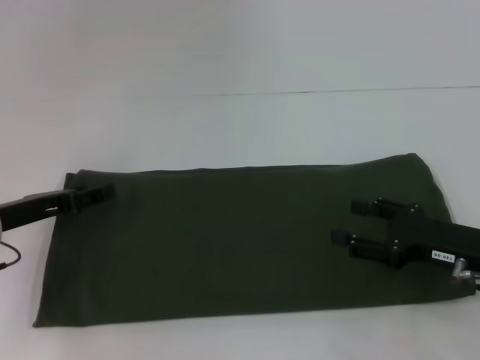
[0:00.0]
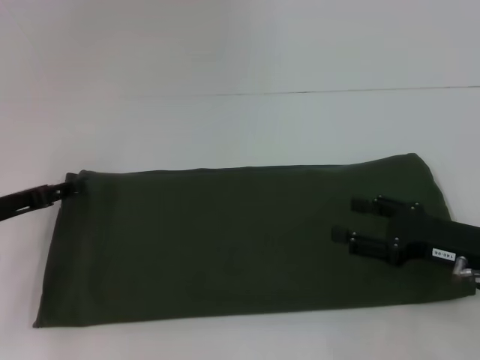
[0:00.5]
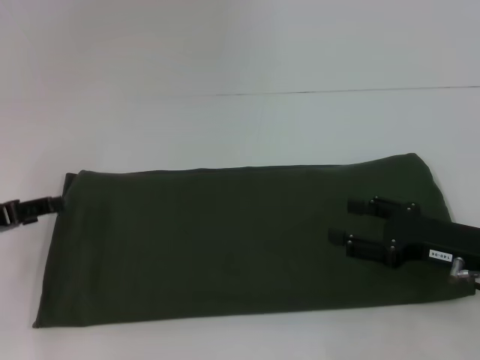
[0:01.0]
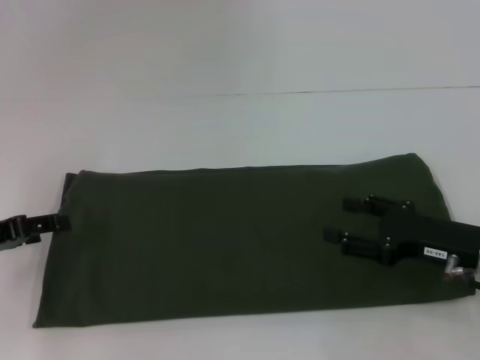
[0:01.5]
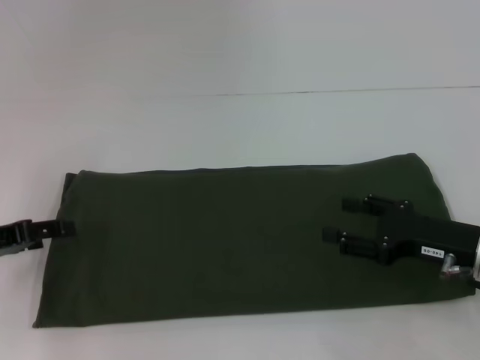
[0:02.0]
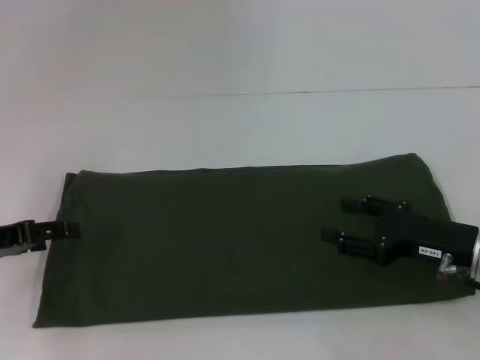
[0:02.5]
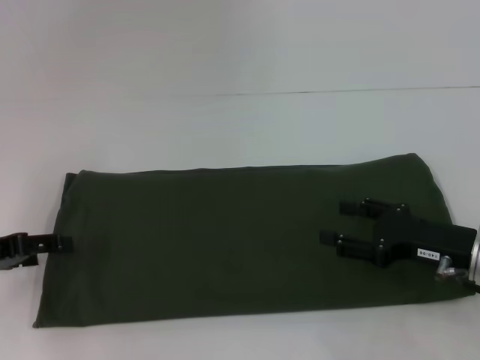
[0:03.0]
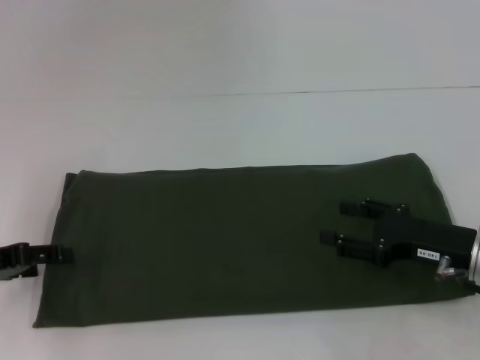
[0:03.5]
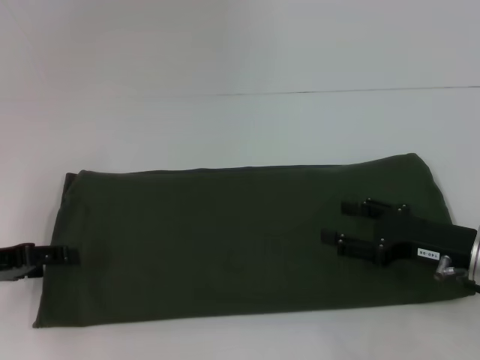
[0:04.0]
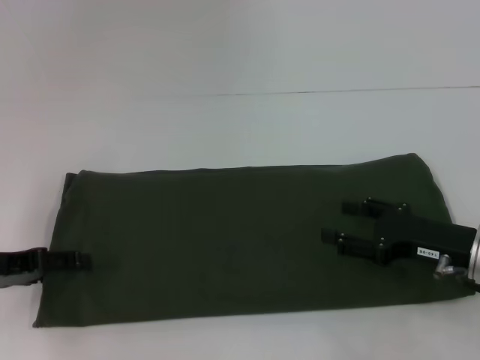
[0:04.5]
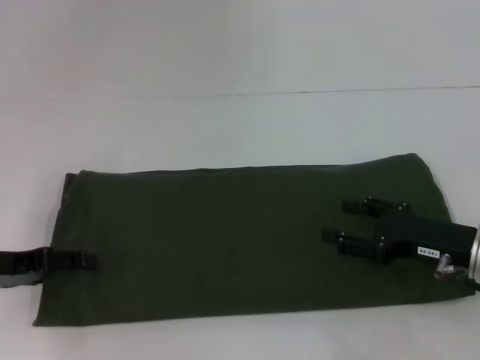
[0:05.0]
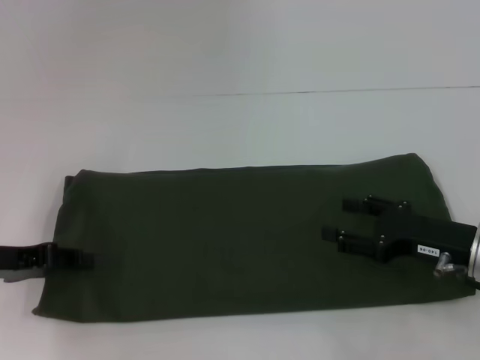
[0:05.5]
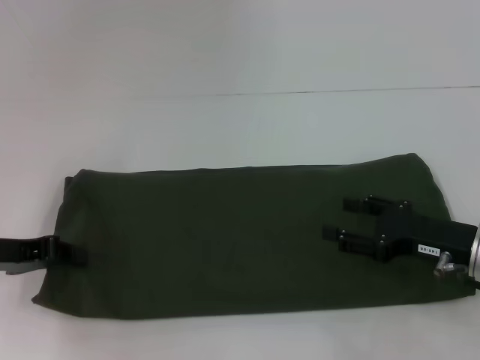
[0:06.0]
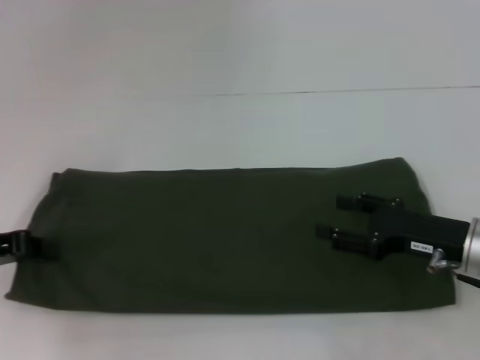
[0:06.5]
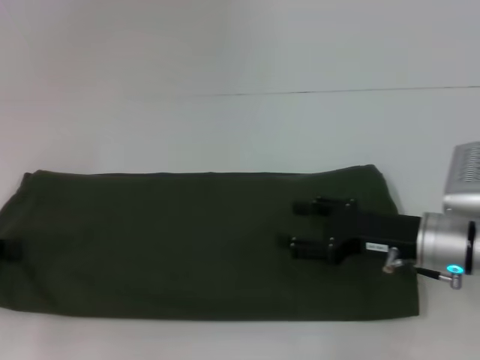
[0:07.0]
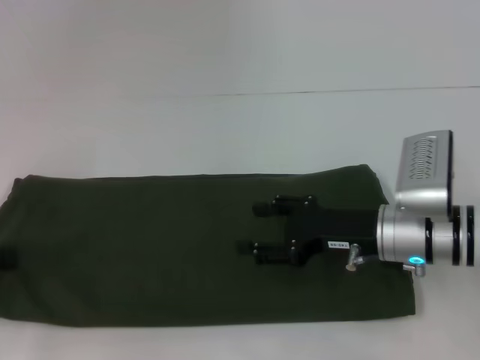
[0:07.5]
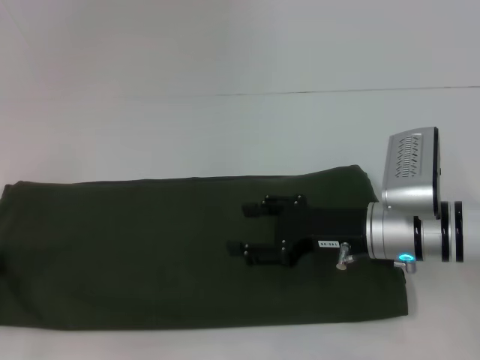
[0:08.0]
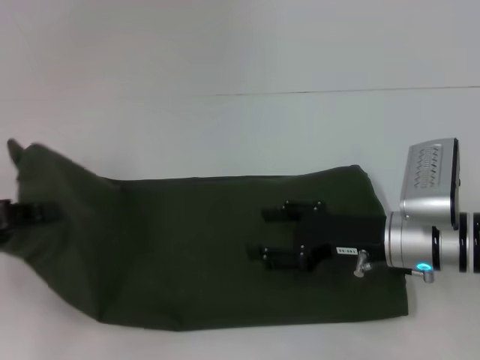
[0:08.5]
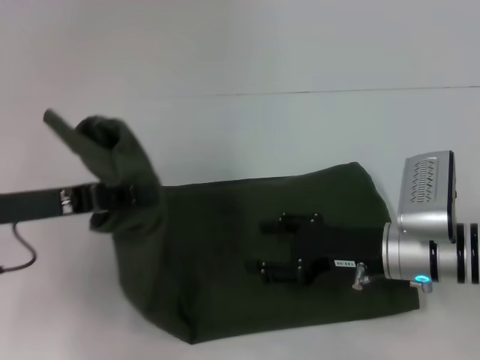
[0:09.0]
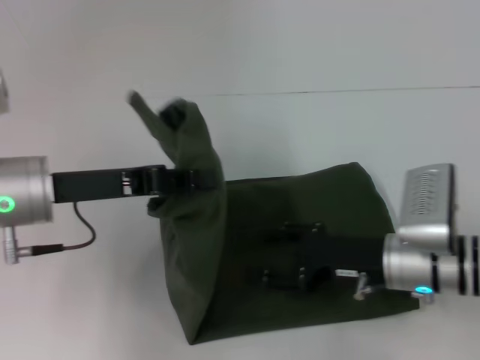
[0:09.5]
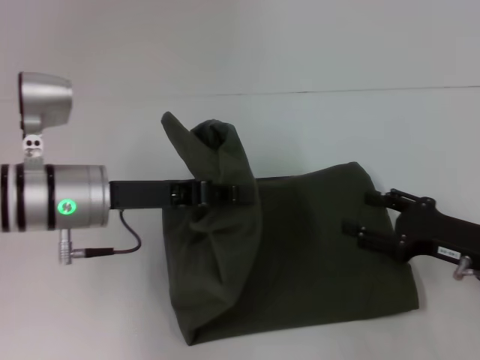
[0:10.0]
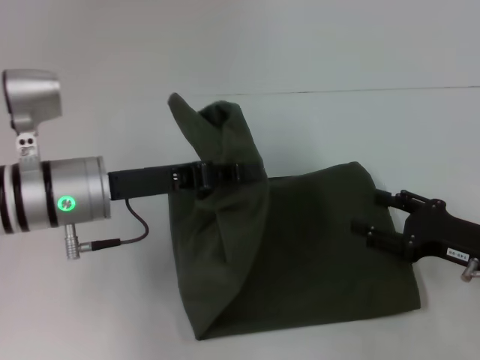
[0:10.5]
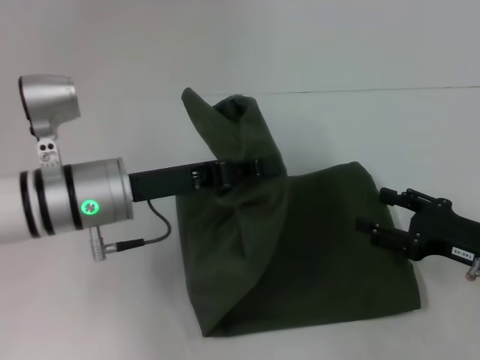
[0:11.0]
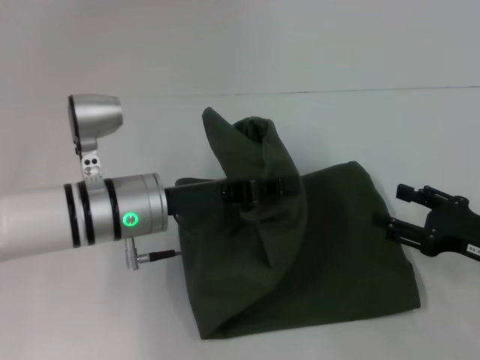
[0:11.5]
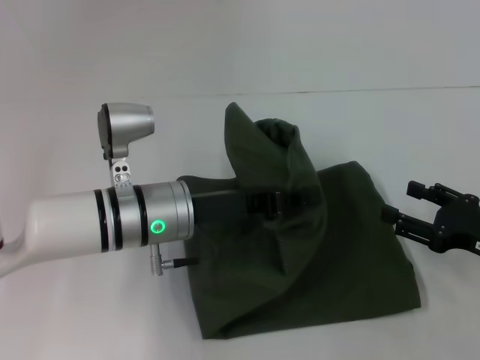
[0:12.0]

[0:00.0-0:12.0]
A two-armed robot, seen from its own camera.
0.0 to 2.0 s: The left gripper shifts by approximately 5 cm.
2.0 to 4.0 s: There are only small adjustments of the grippers.
4.0 to 6.0 s: The left gripper closes up.
6.0 to 8.0 s: The left gripper travels to the left by about 5 cm, while the right gripper is displaced to the left by about 10 cm.
8.0 to 10.0 s: The left gripper is displaced to the right by approximately 20 cm, while the right gripper travels to the right by about 10 cm.
10.0 to 12.0 s: The left gripper moves to the right, approximately 5 cm.

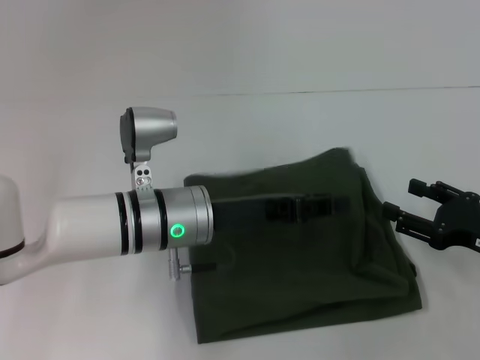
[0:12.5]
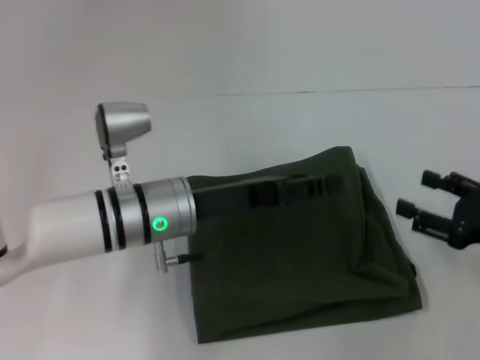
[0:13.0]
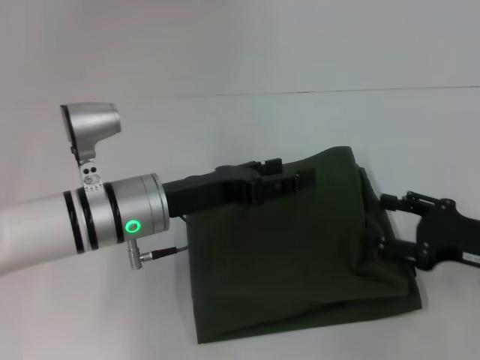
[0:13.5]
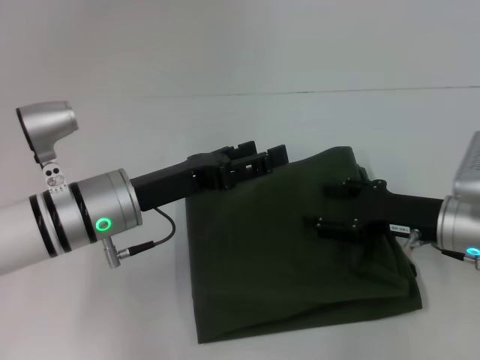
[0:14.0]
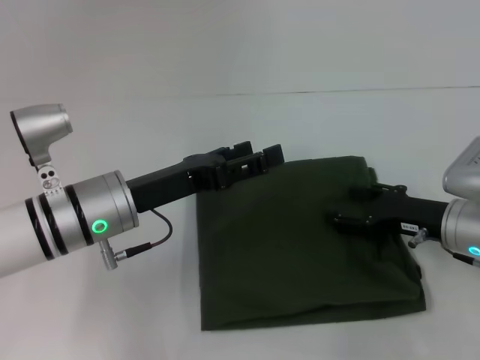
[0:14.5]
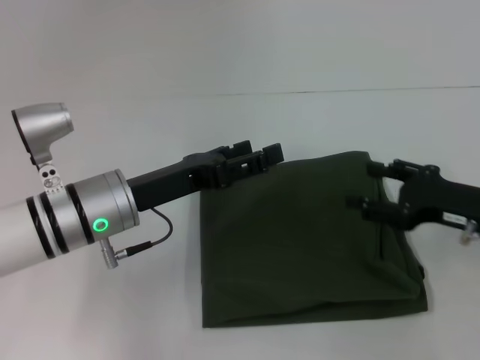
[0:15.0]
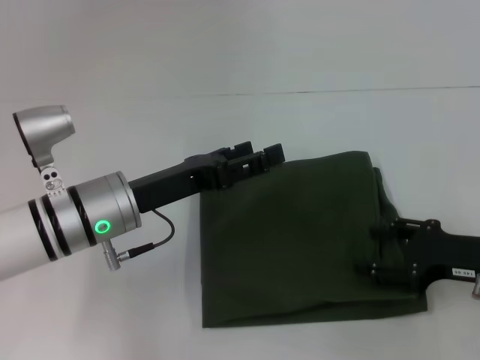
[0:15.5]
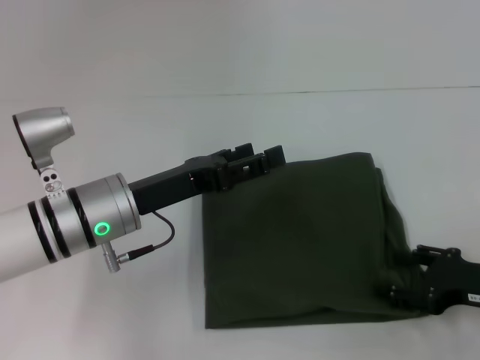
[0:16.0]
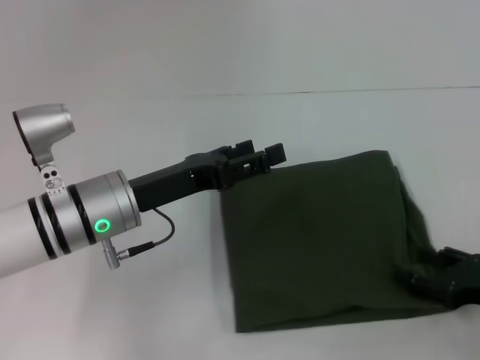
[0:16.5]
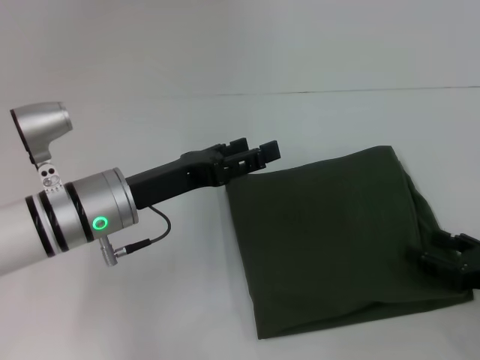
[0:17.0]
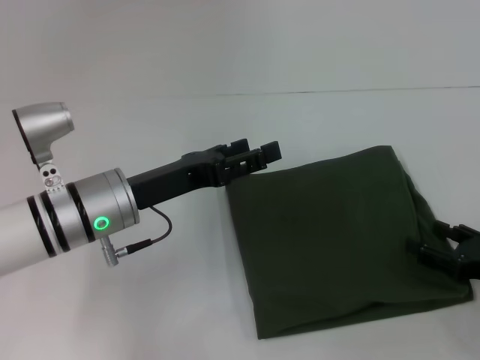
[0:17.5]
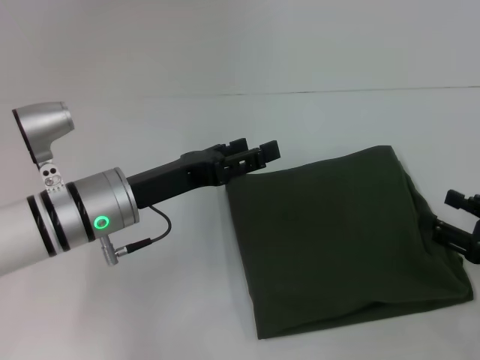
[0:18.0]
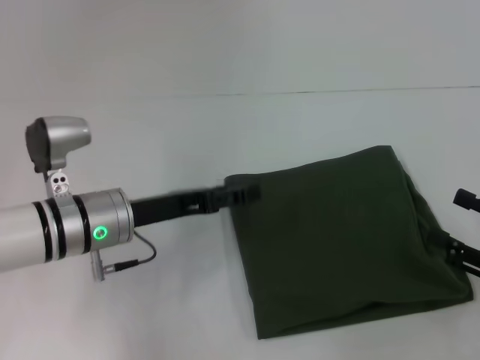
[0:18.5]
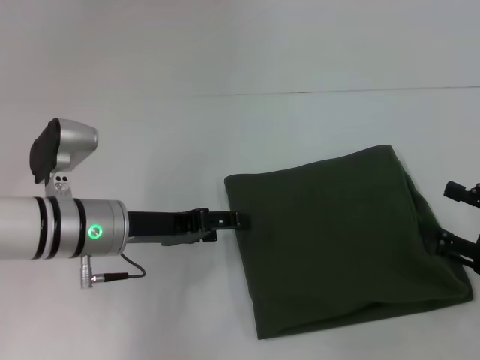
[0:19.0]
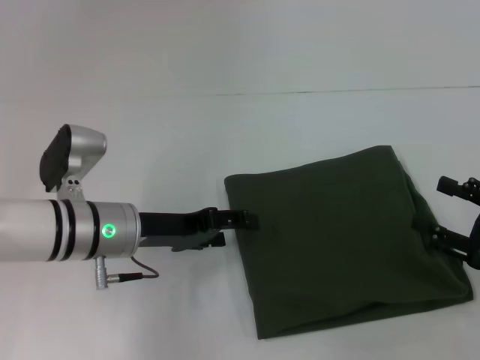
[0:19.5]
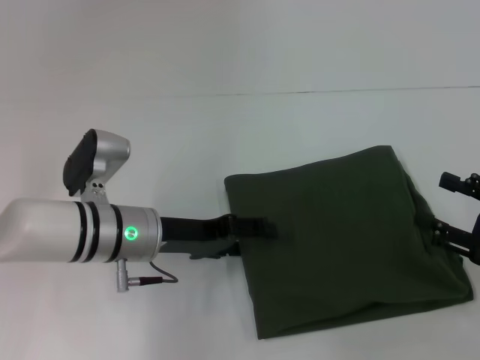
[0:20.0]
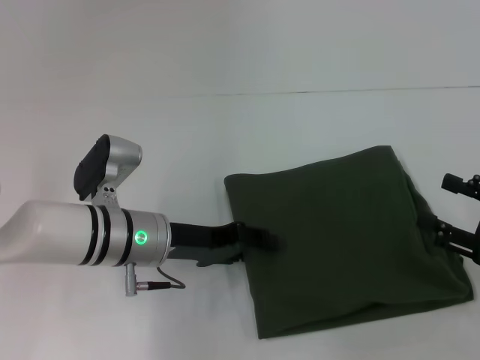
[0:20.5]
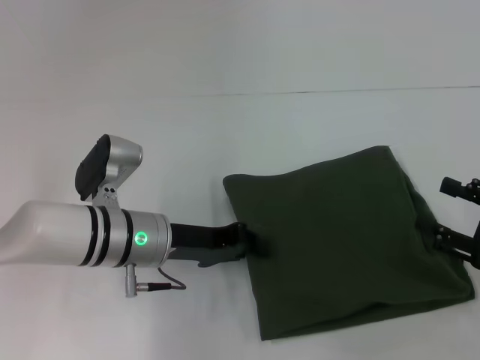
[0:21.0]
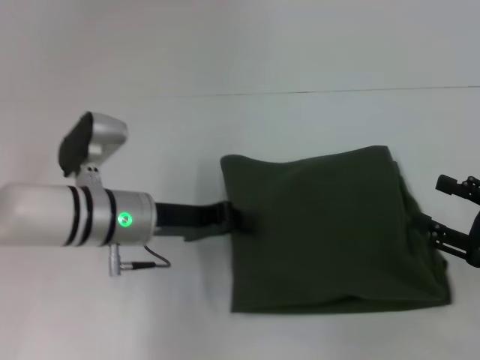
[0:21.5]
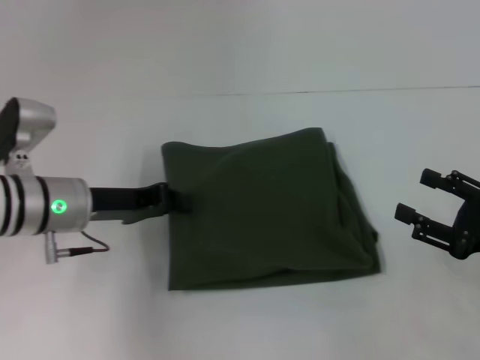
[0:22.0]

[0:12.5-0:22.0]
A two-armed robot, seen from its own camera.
12.5 to 14.5 s: The left gripper shifts some 5 cm to the left, and opens its fingers. The right gripper heads forward and to the left, covering some 10 cm.
14.5 to 16.5 s: The right gripper goes roughly 10 cm backward and to the right.
16.5 to 18.0 s: The grippers move only a little.
20.0 to 22.0 s: The left gripper is displaced to the left by approximately 5 cm, and closes up.

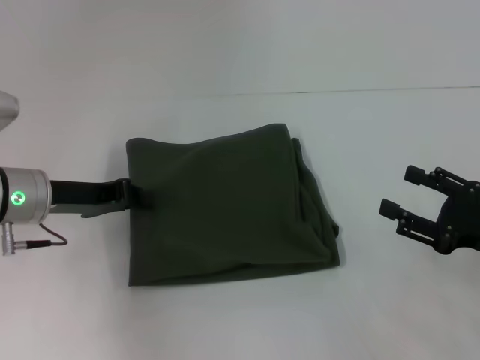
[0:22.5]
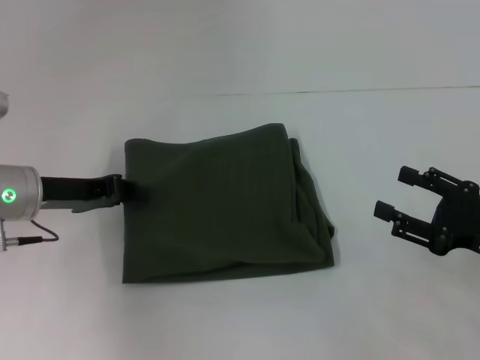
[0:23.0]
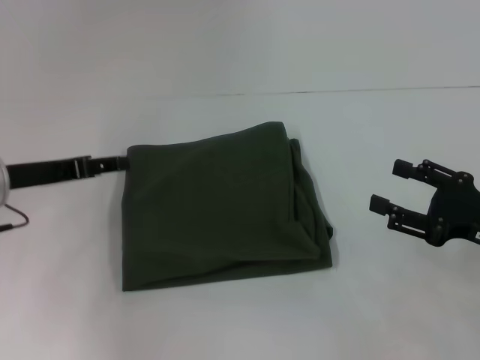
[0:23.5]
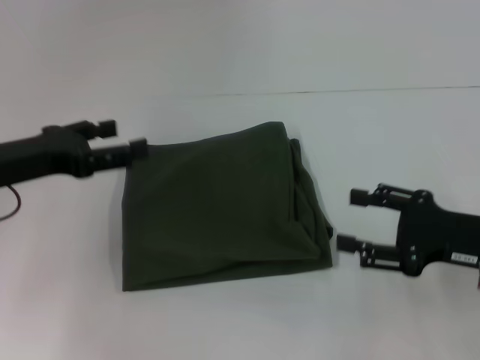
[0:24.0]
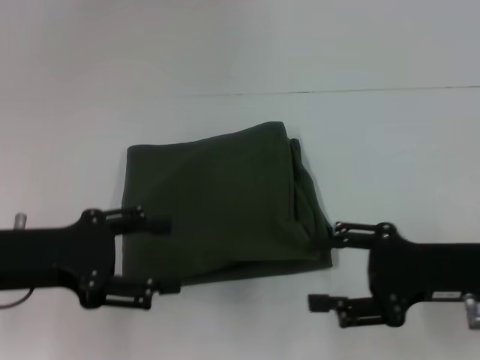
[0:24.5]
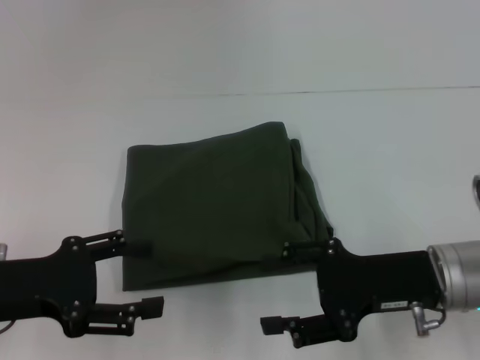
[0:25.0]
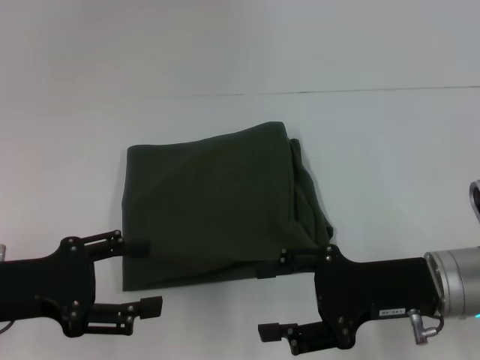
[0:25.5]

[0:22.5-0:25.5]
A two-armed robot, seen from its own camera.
22.5 to 24.0 s: The left gripper ends up about 5 cm from where it was, and opens.
24.0 to 25.5 s: The left gripper is displaced backward by roughly 10 cm. The right gripper heads to the left, covering roughly 5 cm.

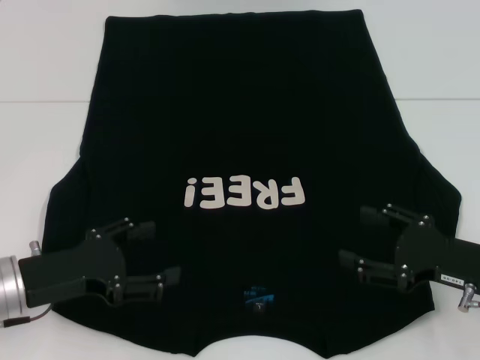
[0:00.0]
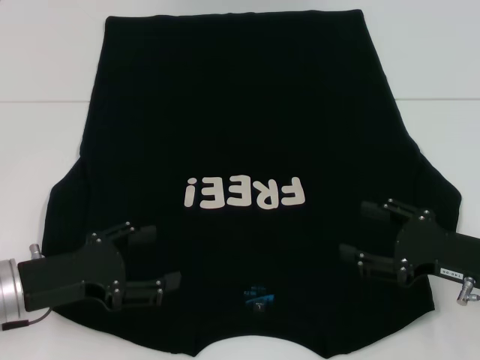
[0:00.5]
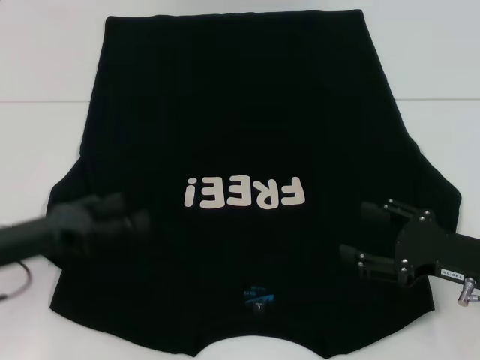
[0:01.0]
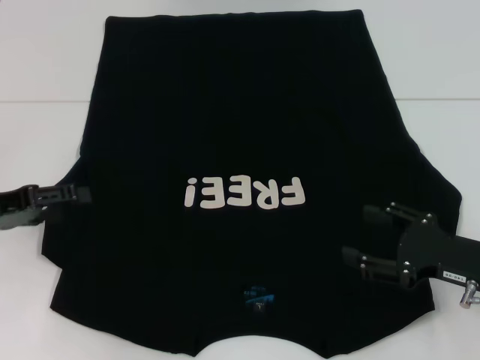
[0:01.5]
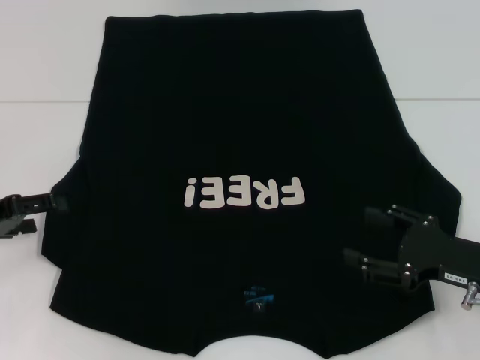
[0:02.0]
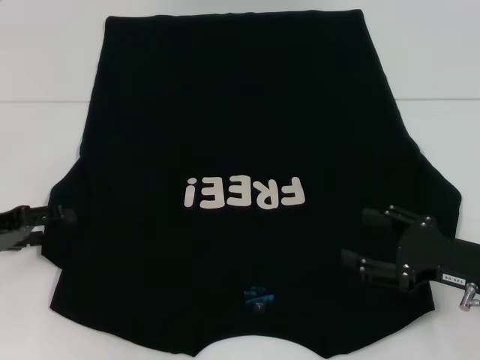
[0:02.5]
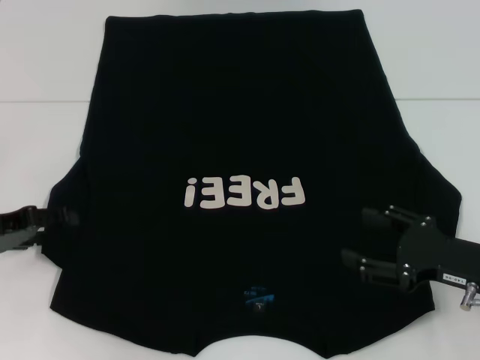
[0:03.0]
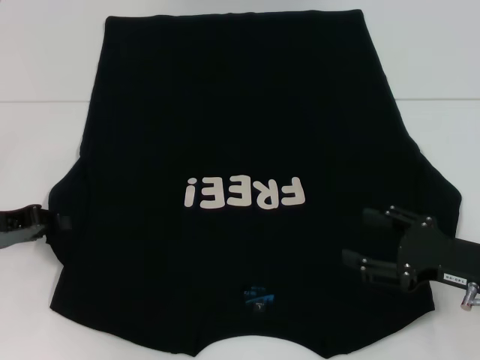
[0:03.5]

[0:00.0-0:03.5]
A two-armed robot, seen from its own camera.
0.0 to 2.0 s: The left gripper heads to the left and forward, covering about 10 cm.
2.0 to 3.5 s: The left gripper closes its fingers.
